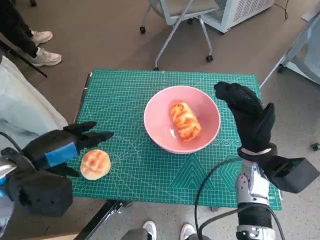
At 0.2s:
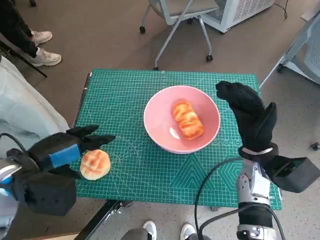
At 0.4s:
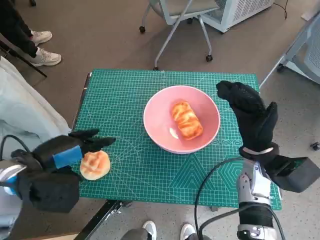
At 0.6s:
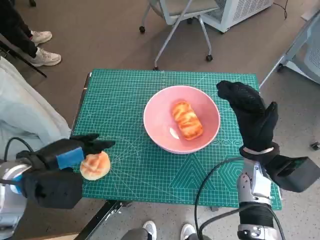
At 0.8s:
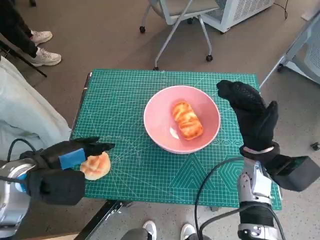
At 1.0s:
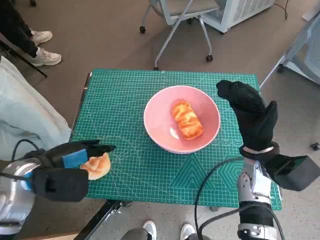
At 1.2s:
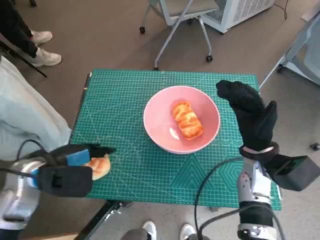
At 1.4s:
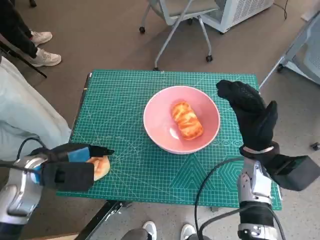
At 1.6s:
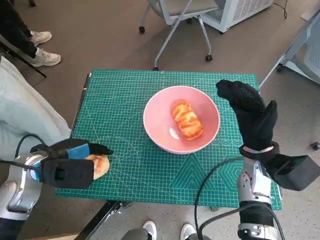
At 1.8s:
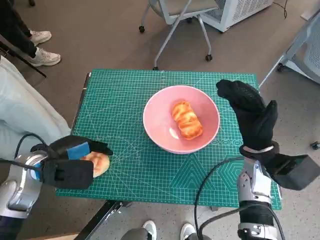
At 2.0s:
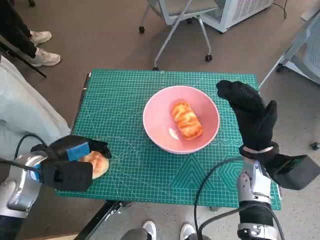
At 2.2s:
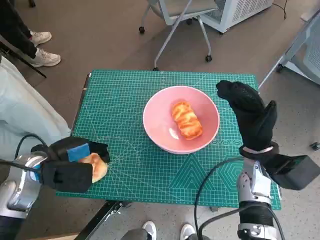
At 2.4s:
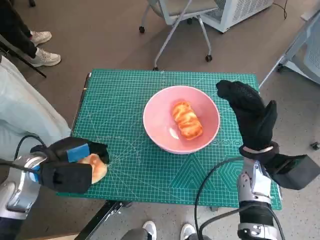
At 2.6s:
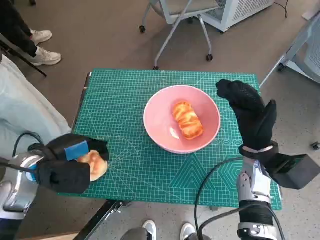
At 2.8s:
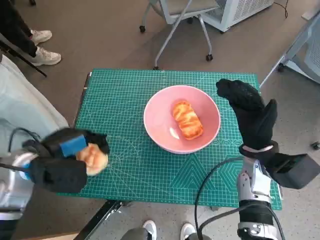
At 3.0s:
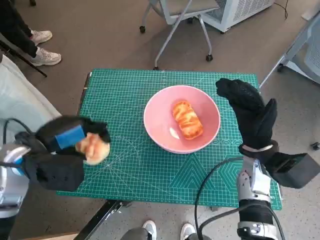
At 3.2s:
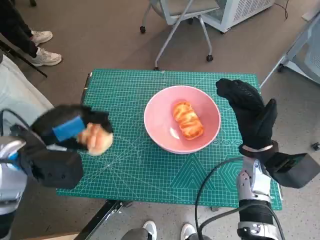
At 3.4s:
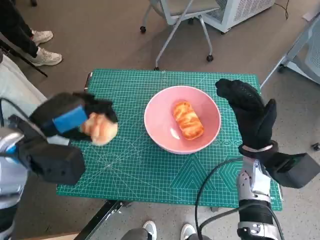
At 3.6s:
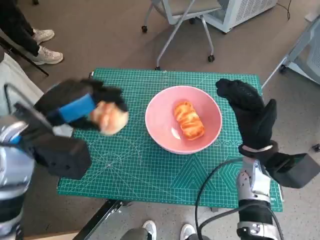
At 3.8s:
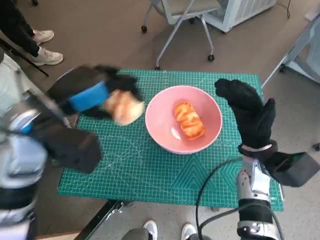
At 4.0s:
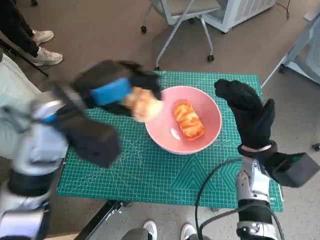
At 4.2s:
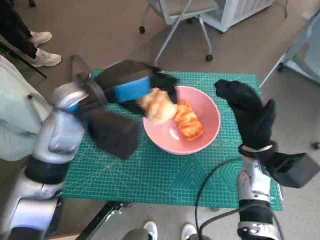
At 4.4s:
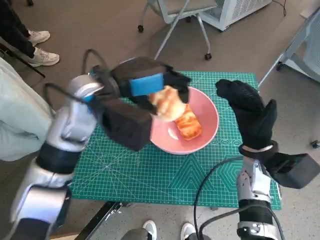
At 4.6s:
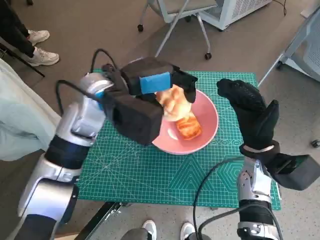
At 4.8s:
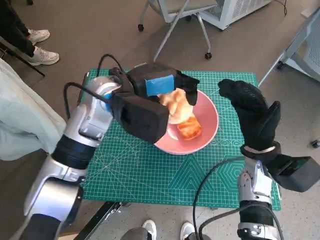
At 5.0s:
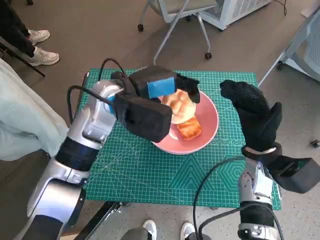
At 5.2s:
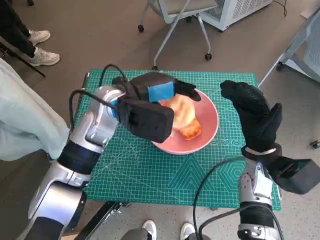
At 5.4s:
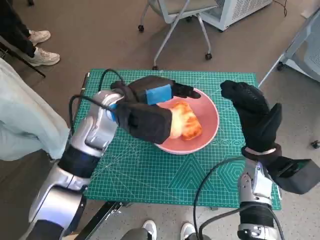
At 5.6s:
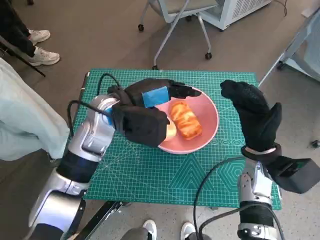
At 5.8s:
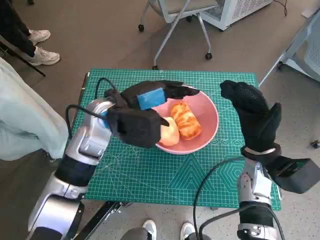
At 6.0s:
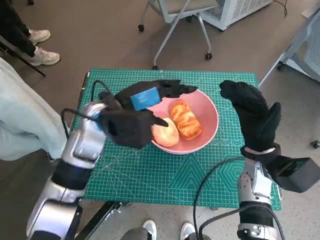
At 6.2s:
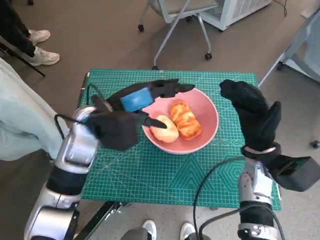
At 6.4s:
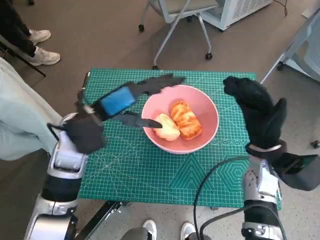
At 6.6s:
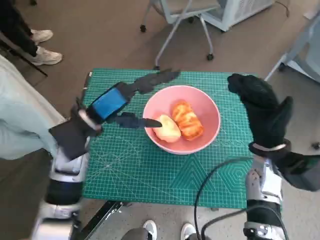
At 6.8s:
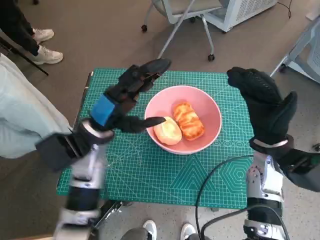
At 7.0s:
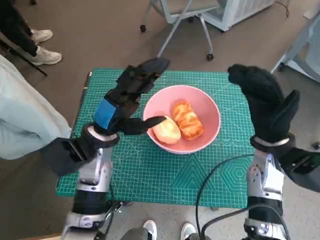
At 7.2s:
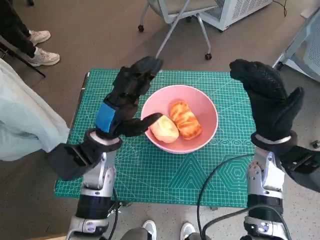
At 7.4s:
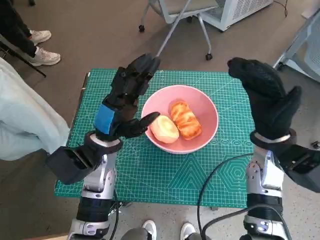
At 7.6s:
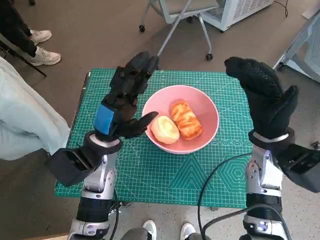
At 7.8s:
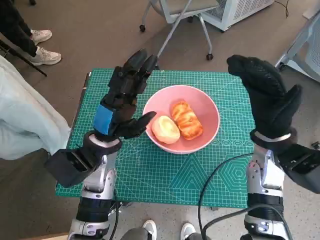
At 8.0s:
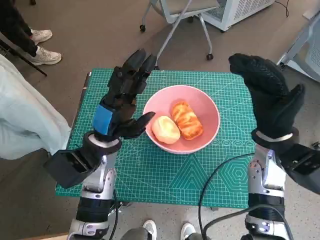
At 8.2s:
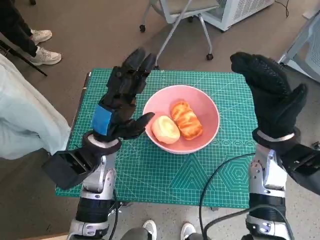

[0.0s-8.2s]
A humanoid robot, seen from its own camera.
Task of the whole recording: Push the bowl into the center of the table and put the bread into the bowl.
Step, 0.0s to 2.4s: Grasp the round bread with left hand.
Step, 2.6s to 6.4s: Place the round bread in pink bowl with left hand.
0.0s to 1.6s: The left hand moves downward, some 5 cm.
1.6s to 3.2s: The left hand travels upward by roughly 5 cm.
3.2s to 5.0s: The left hand shifts some 15 cm to the right and forward.
5.0s to 6.6s: The left hand heads to the left, covering roughly 5 cm.
6.6s to 8.2s: The left hand ends up some 5 cm from where it was.

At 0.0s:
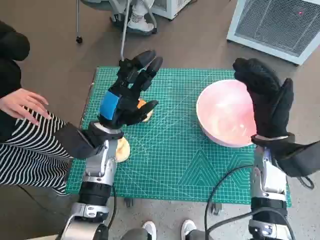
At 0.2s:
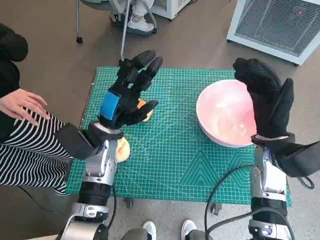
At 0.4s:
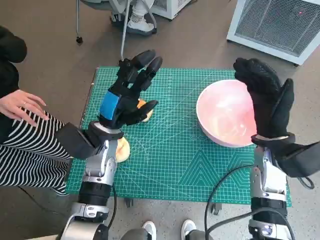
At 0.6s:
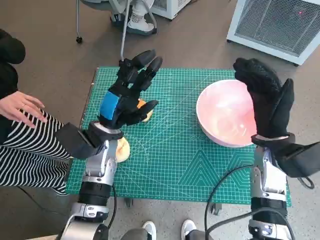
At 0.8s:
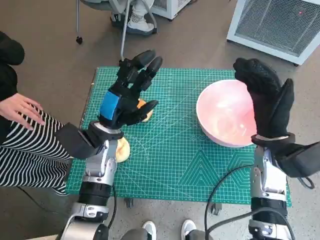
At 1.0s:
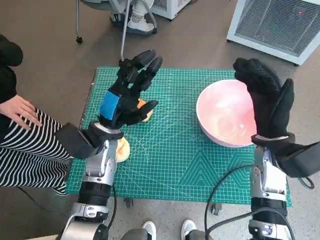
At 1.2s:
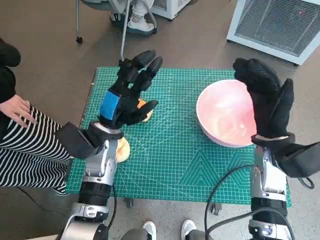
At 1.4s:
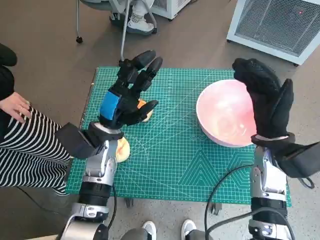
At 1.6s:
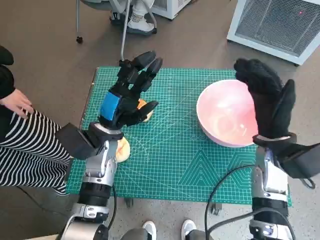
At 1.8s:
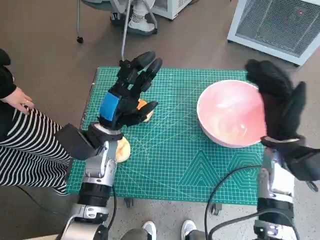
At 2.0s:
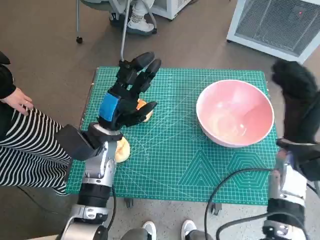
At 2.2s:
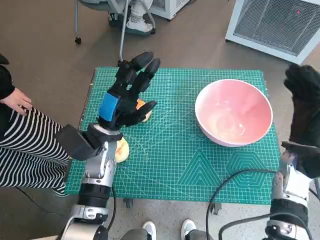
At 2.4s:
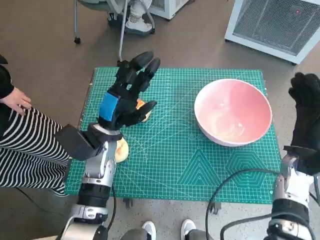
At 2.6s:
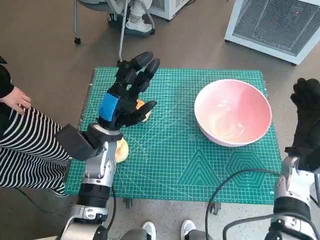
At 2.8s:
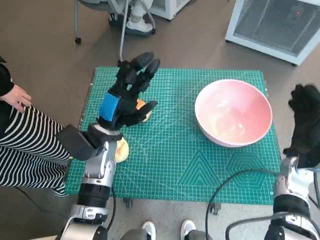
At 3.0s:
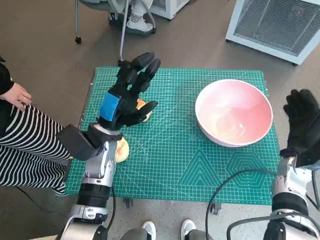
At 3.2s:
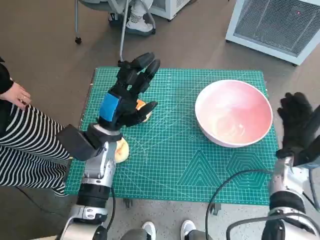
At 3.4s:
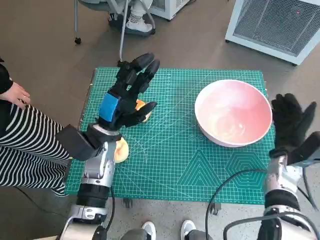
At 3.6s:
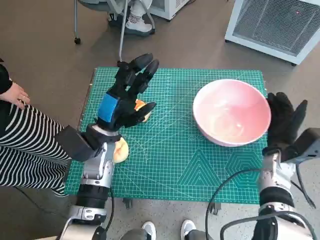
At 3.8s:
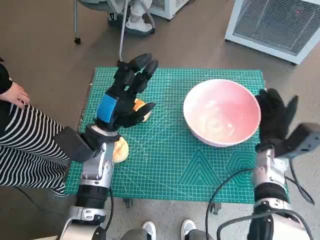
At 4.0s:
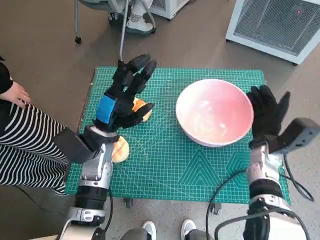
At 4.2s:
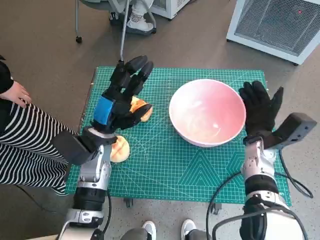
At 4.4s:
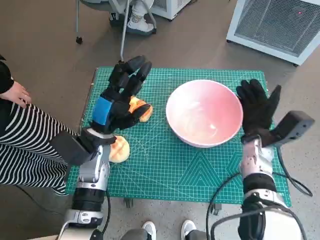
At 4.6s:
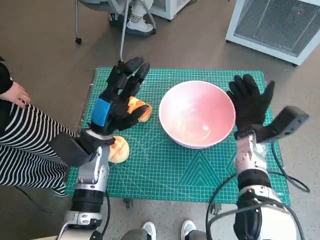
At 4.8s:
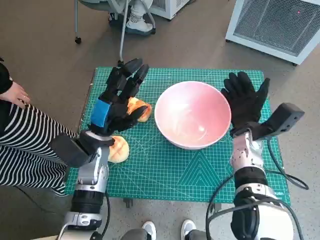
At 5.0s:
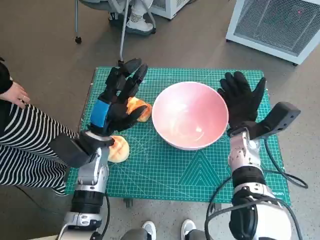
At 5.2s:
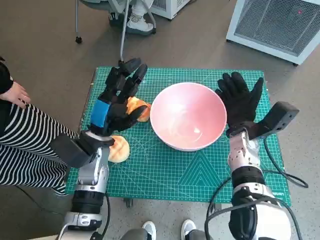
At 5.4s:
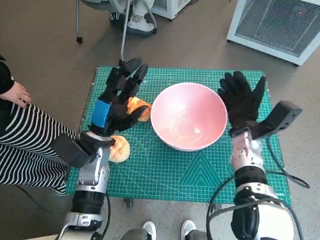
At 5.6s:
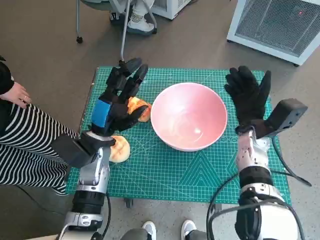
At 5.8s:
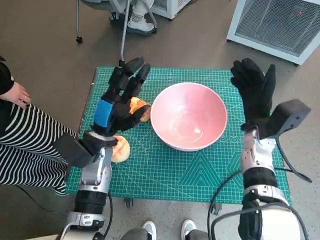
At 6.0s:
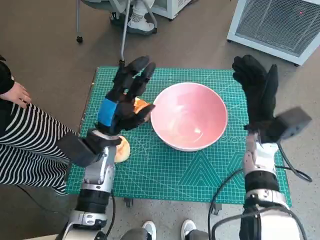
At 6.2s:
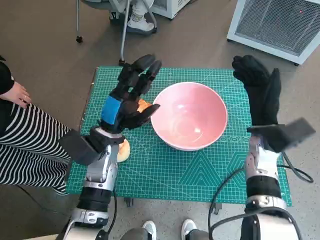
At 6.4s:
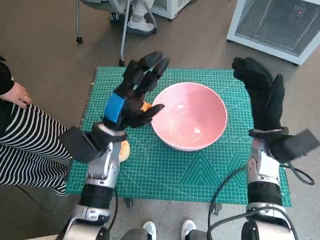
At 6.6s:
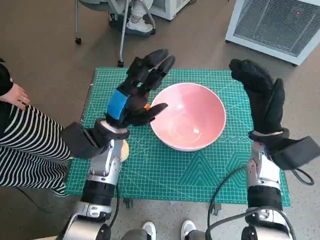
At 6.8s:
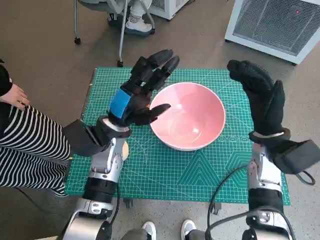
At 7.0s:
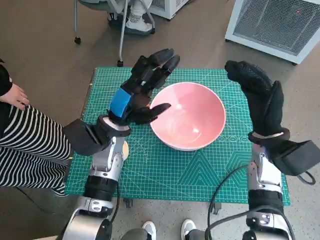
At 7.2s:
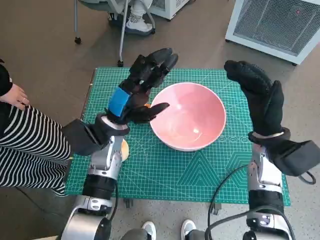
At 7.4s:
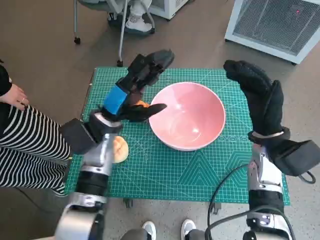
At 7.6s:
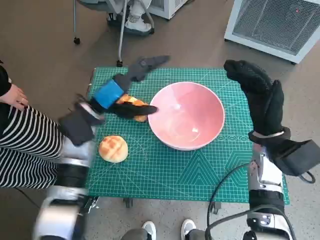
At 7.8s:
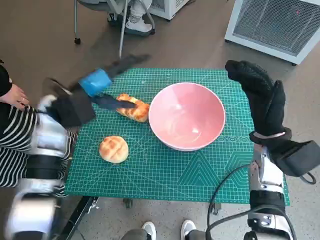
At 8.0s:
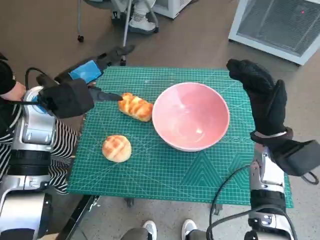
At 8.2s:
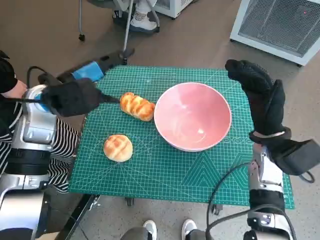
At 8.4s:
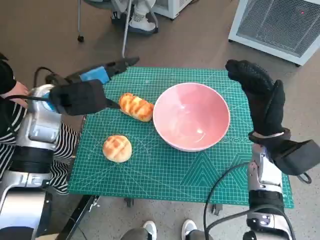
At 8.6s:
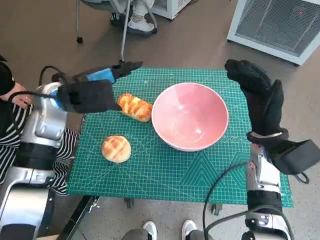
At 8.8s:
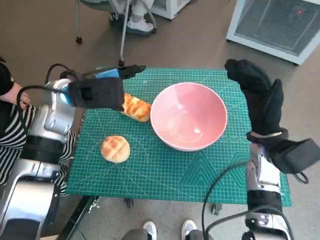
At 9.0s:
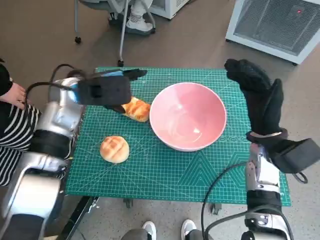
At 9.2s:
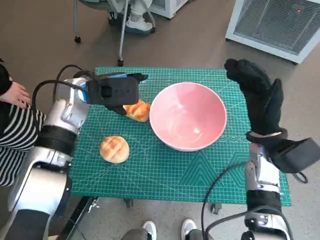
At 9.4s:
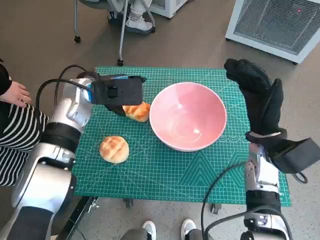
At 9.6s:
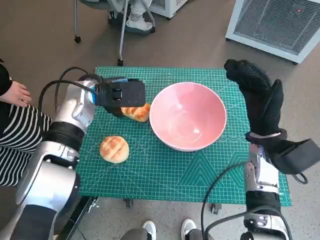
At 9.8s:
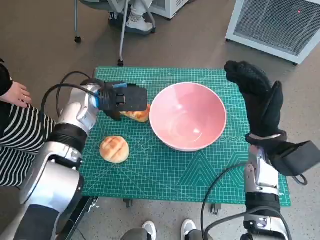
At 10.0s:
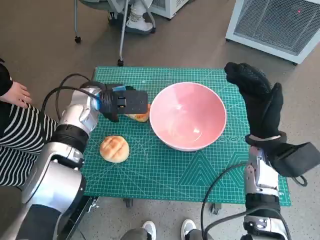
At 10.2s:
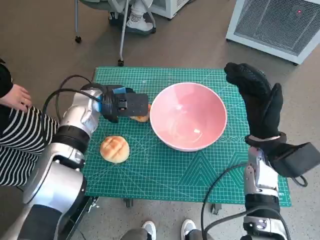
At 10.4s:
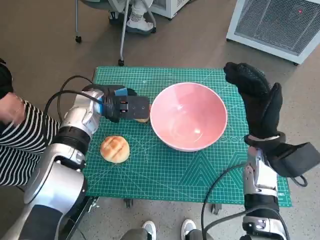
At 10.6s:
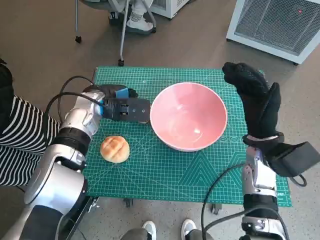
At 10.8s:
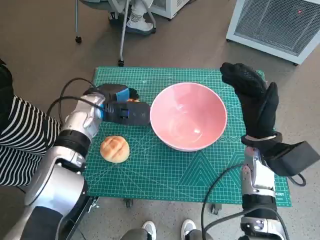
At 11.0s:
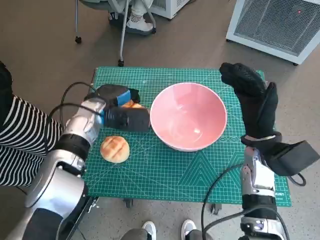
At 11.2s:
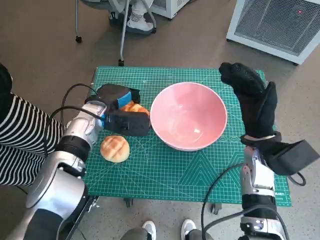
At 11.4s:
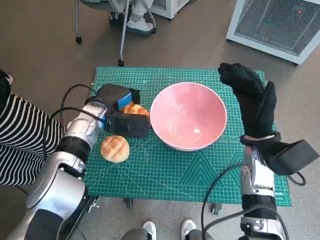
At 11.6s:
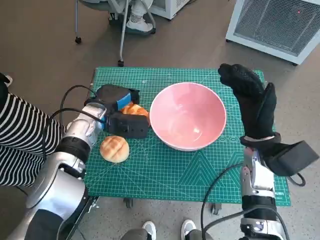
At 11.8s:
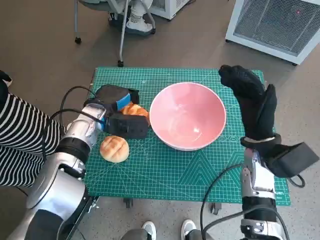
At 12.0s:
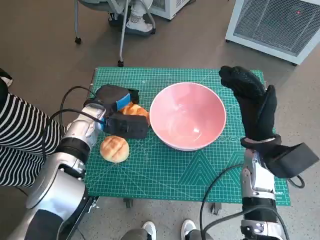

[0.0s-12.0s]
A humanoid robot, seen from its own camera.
Task of the whole recording: Push the bowl into the center of the table and put the bread into the bowl.
Step, 0.0s to 5.4s: Move the pink bowl to the center of table with right hand.
1.6s to 3.0s: The right hand goes some 10 cm to the right and downward.
3.0s to 4.4s: The right hand is displaced to the left by some 5 cm.
6.0s to 7.6s: The left hand changes place by approximately 5 cm.
7.6s to 9.0s: The left hand shifts roughly 5 cm upward.
9.0s to 10.4s: The left hand moves downward, about 5 cm.

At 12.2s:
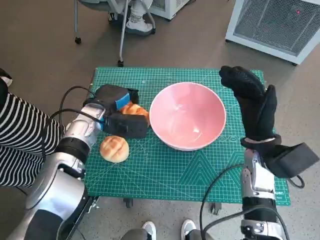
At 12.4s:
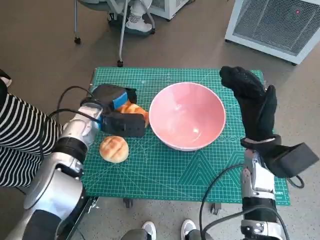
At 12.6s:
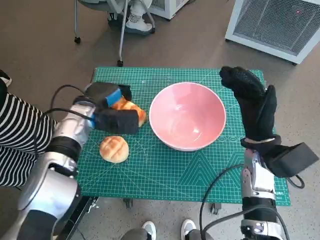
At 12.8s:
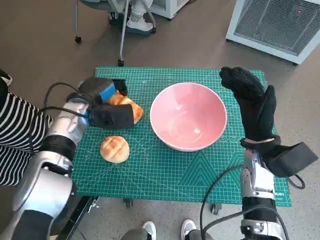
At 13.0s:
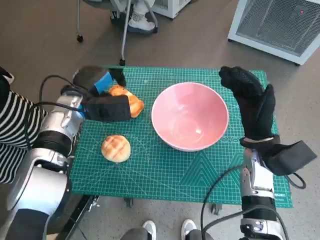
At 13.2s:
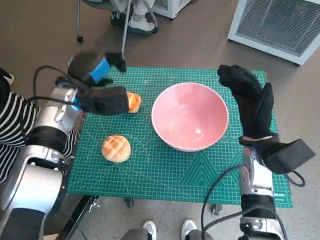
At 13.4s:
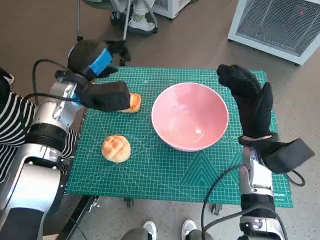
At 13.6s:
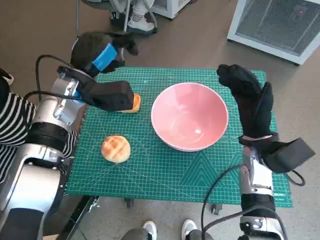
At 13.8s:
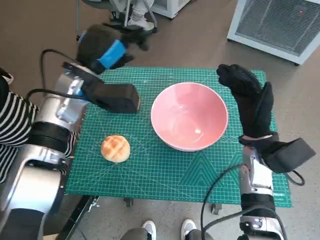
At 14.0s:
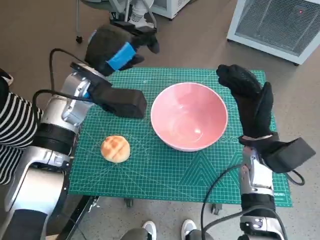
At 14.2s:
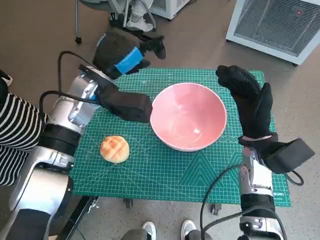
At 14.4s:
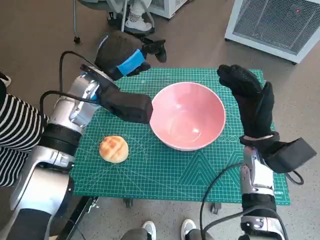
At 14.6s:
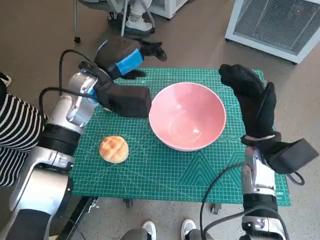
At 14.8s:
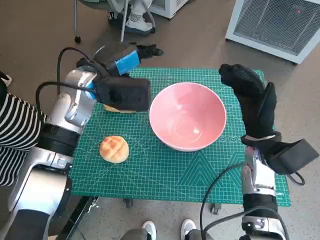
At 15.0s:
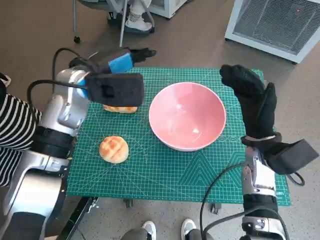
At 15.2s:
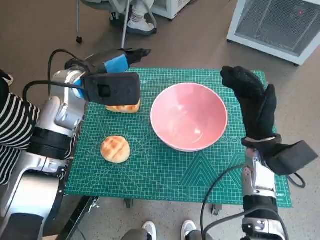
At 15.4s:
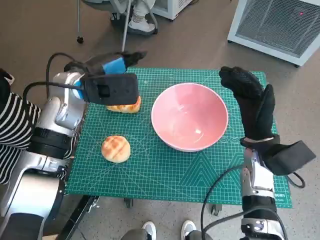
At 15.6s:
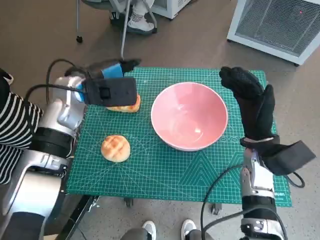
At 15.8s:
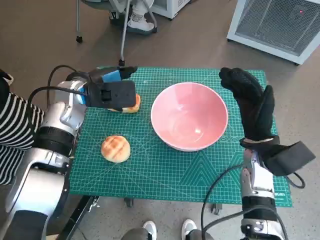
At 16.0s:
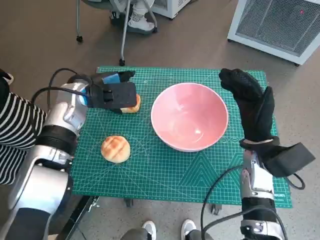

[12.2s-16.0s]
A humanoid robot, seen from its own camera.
Task of the whole recording: Push the bowl into the center of the table and put the bread into the bowl.
12.2s to 13.4s: The left hand goes approximately 5 cm upward.
13.4s to 14.8s: The left hand moves about 5 cm.
14.8s to 16.0s: The left hand changes place by roughly 5 cm.
